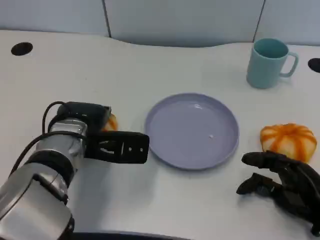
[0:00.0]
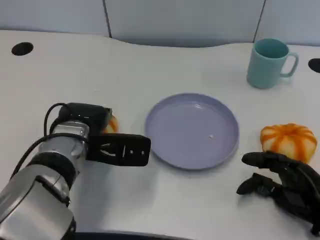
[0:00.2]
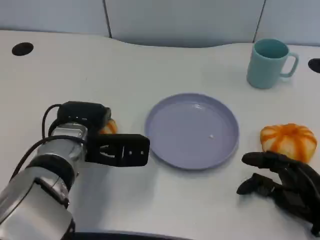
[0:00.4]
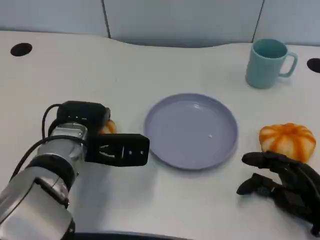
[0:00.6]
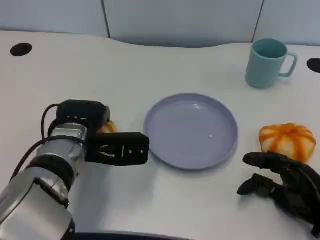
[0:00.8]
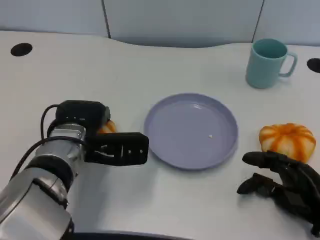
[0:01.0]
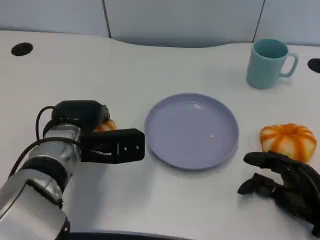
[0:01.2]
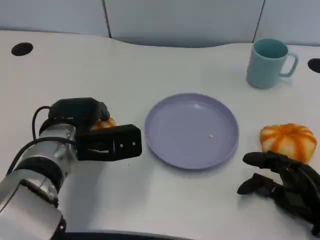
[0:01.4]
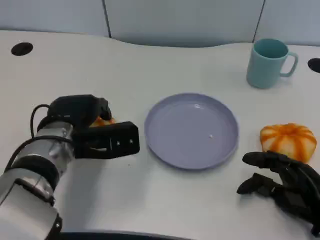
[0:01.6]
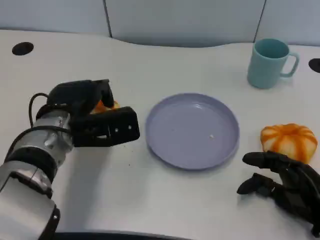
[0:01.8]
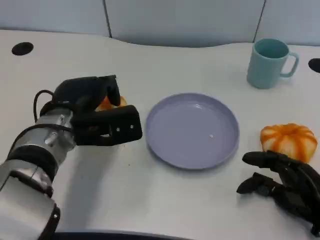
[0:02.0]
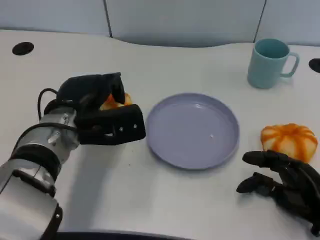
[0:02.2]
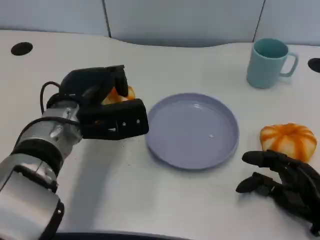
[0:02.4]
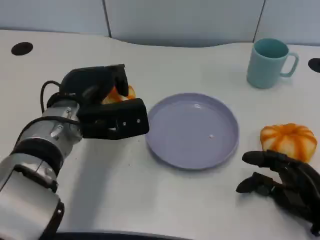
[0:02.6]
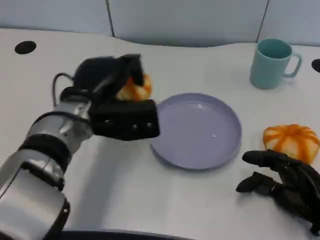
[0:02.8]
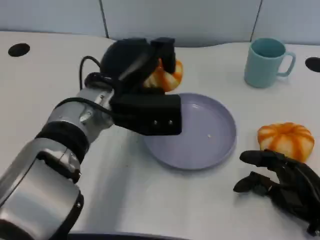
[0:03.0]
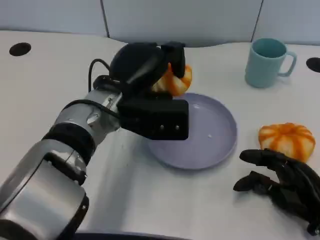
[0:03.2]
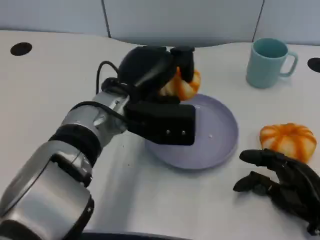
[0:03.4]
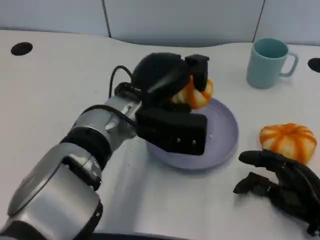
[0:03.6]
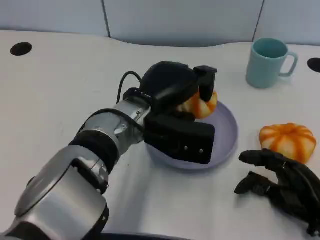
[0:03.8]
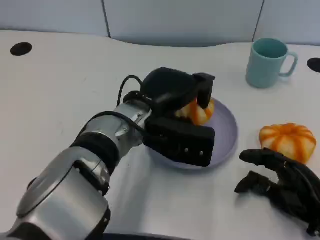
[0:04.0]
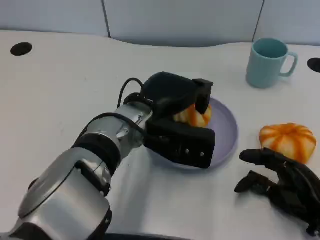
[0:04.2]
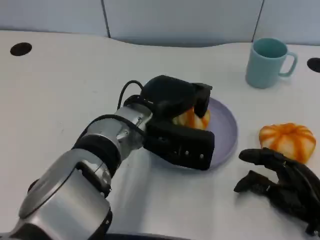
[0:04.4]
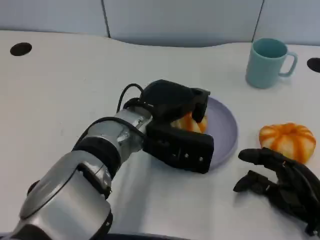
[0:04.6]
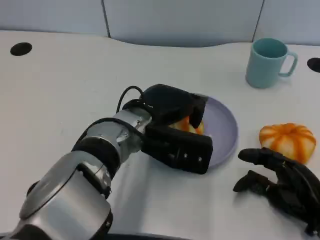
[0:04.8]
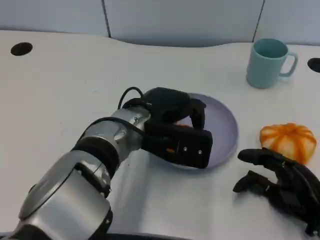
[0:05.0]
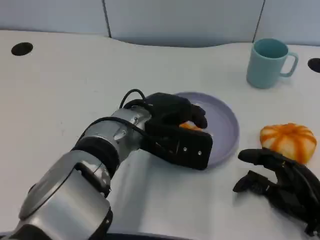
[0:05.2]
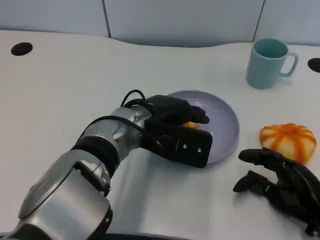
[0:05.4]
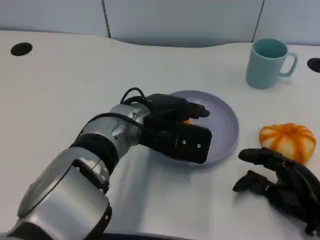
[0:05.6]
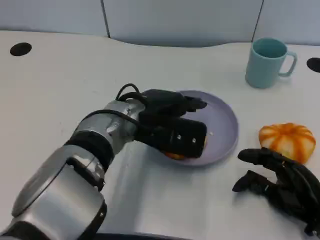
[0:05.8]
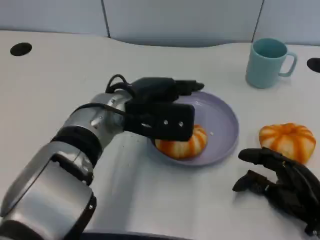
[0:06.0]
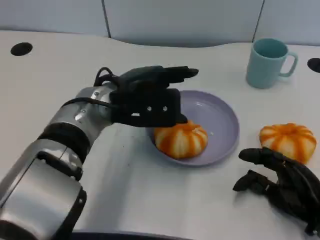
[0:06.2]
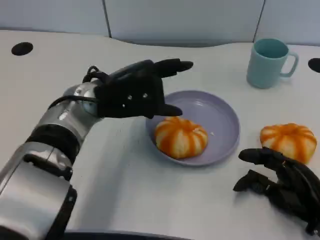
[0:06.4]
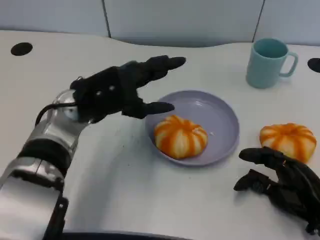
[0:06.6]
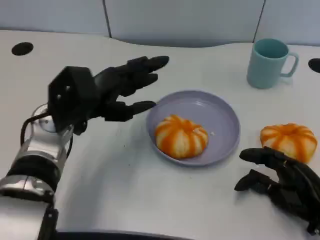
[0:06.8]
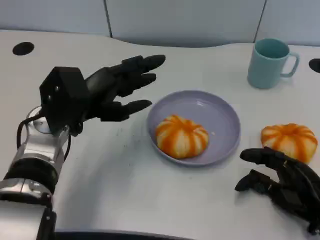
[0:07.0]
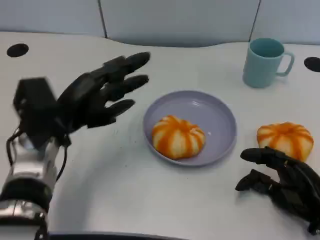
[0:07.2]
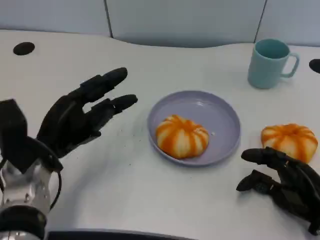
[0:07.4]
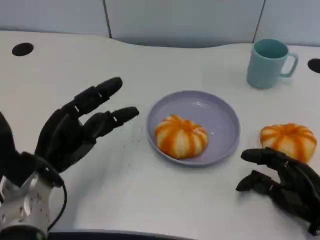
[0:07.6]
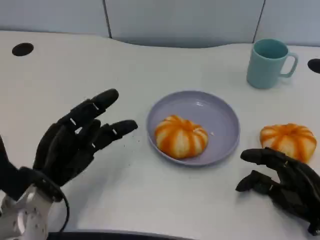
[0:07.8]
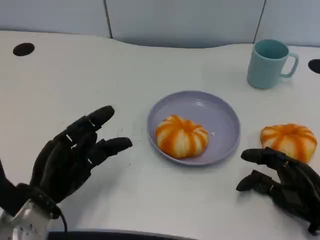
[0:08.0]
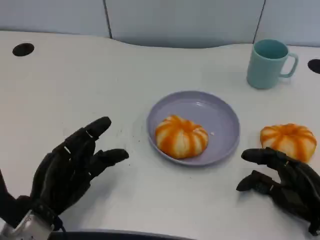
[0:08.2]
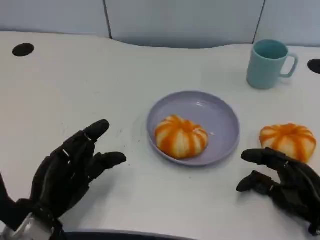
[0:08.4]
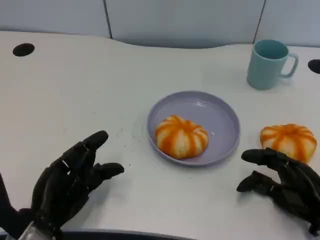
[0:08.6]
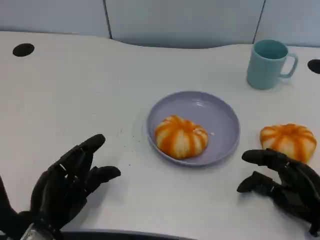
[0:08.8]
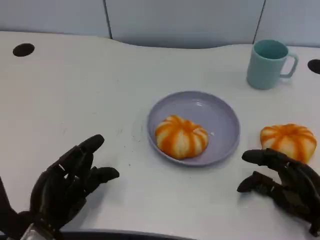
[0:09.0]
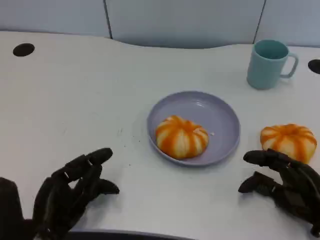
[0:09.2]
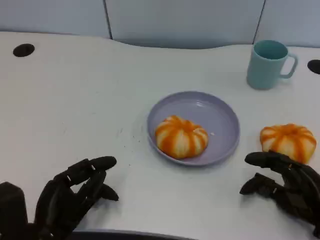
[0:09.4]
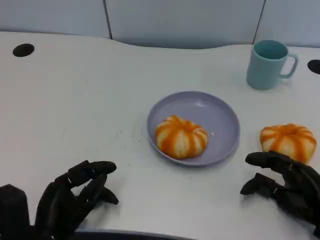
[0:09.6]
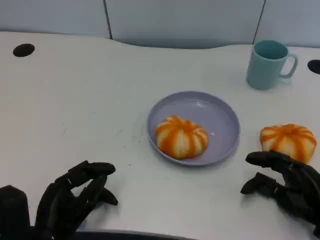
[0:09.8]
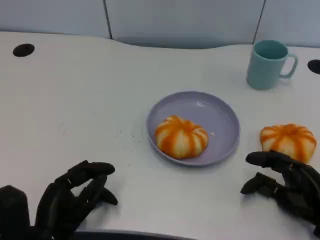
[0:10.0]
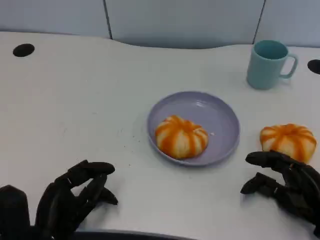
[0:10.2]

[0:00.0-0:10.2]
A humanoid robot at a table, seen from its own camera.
Task of the whole recording: Grasp the bread from the table and place it into the plate.
0:00.0 to 0:01.4: There are only small adjustments of the hands.
0:01.4 to 0:03.0: The left hand shifts some 10 cm to the right and upward.
0:03.0 to 0:04.4: The left hand ends up roughly 5 cm from where it was.
0:04.4 to 0:05.8: The hands stay close to where they were, moving slightly.
0:05.8 to 0:07.2: The left hand heads to the left, covering approximately 15 cm.
0:07.2 to 0:08.8: The left hand heads backward and downward, covering some 15 cm.
0:08.8 to 0:10.2: The hands stay close to where they were, moving slightly.

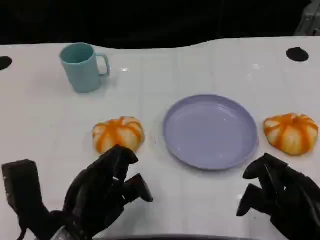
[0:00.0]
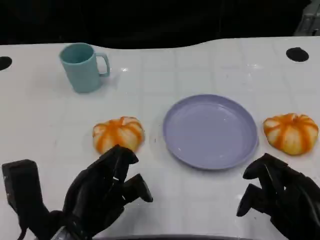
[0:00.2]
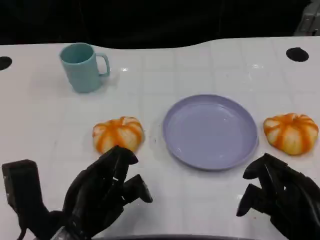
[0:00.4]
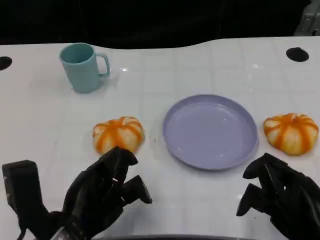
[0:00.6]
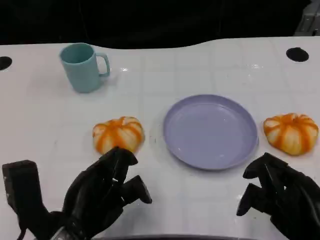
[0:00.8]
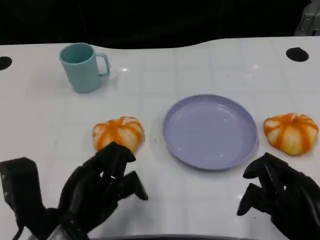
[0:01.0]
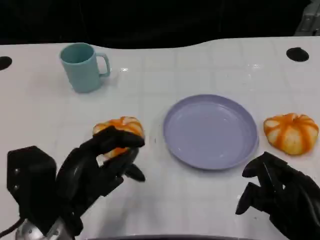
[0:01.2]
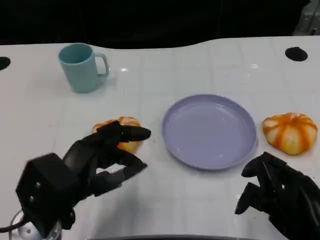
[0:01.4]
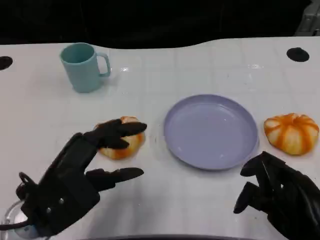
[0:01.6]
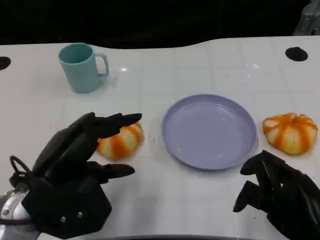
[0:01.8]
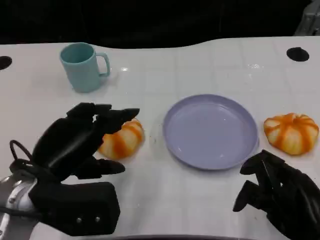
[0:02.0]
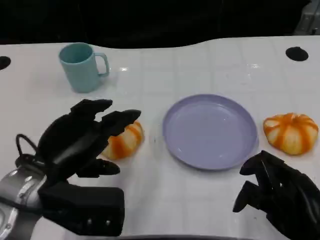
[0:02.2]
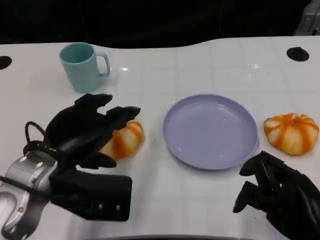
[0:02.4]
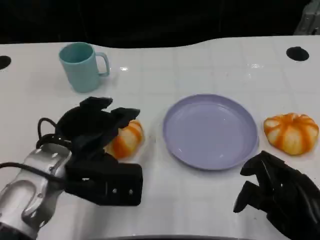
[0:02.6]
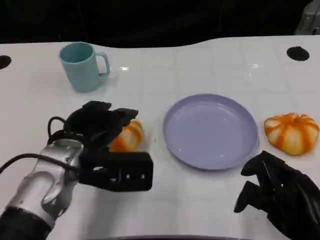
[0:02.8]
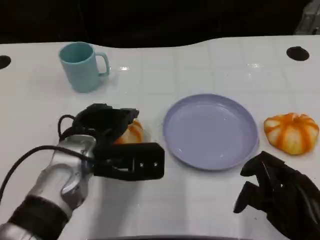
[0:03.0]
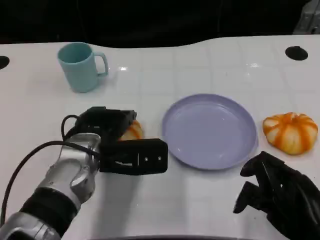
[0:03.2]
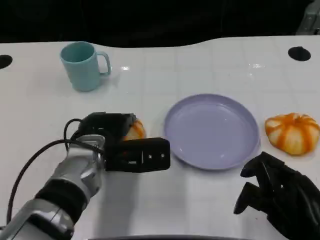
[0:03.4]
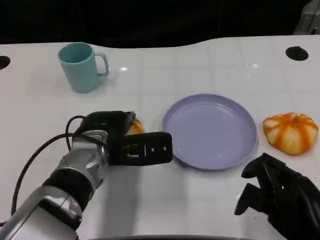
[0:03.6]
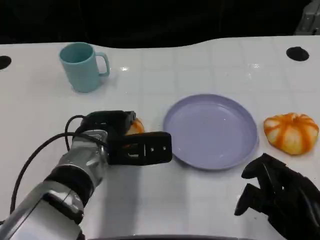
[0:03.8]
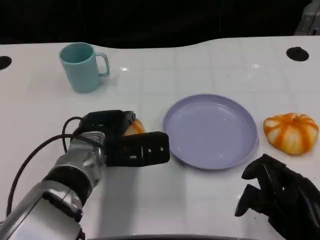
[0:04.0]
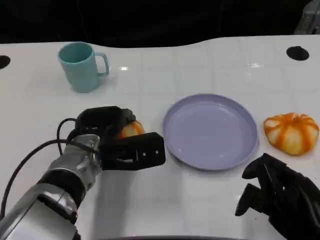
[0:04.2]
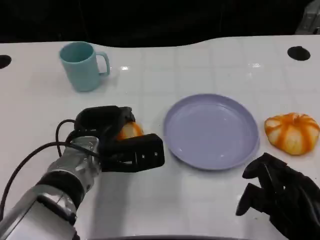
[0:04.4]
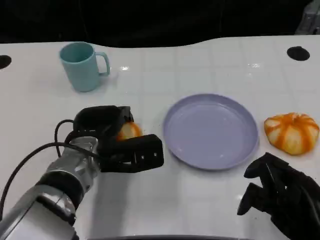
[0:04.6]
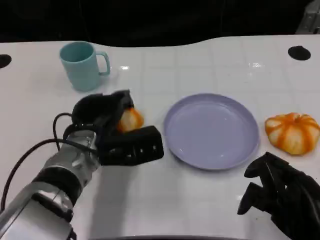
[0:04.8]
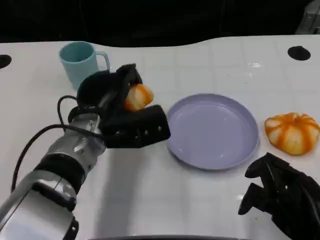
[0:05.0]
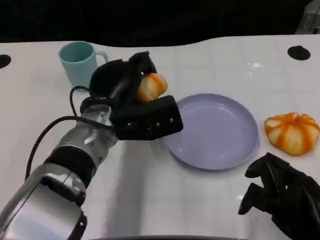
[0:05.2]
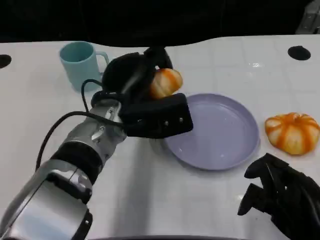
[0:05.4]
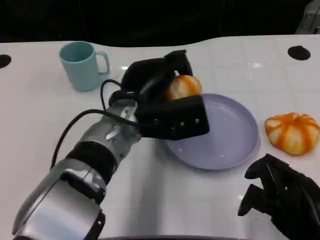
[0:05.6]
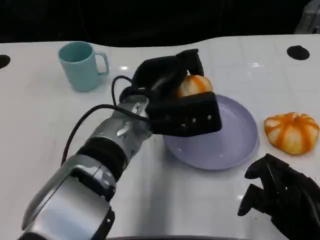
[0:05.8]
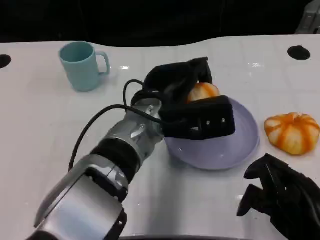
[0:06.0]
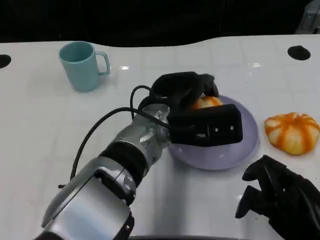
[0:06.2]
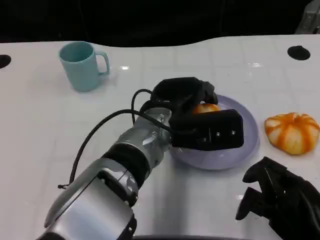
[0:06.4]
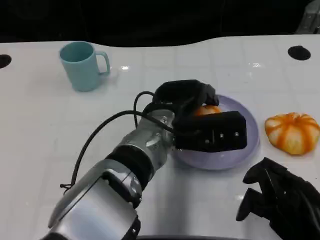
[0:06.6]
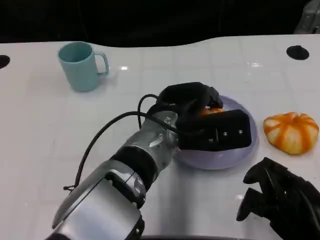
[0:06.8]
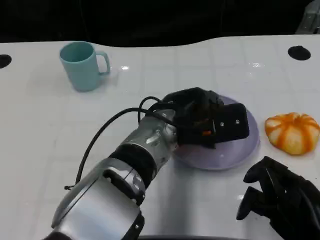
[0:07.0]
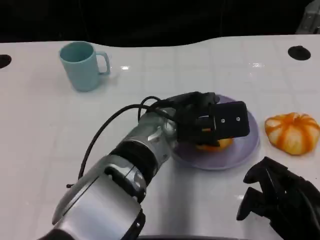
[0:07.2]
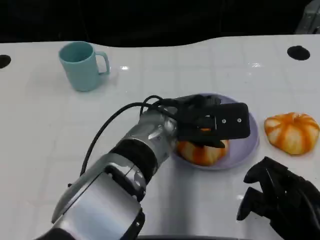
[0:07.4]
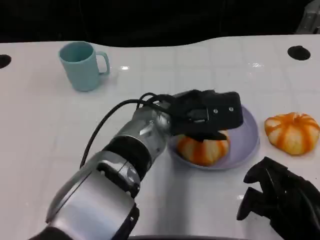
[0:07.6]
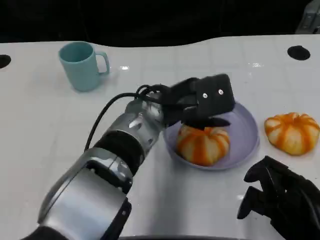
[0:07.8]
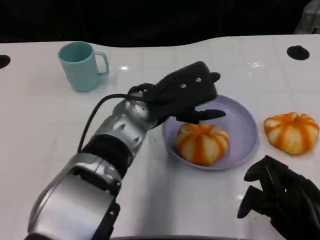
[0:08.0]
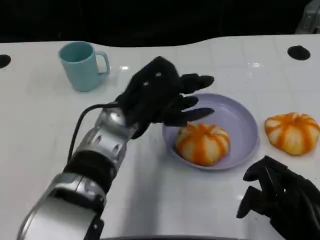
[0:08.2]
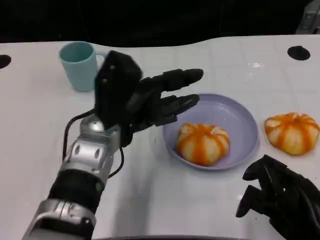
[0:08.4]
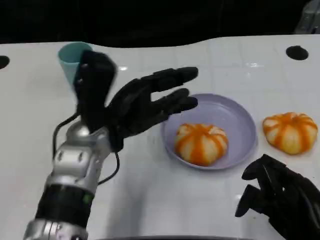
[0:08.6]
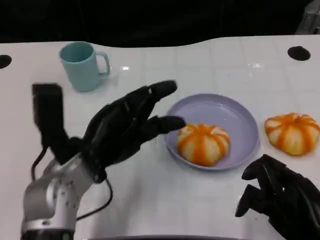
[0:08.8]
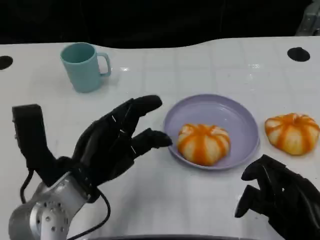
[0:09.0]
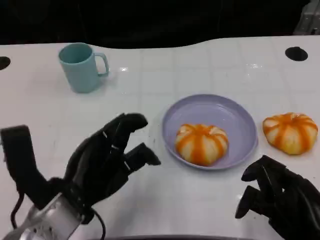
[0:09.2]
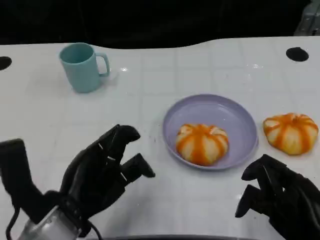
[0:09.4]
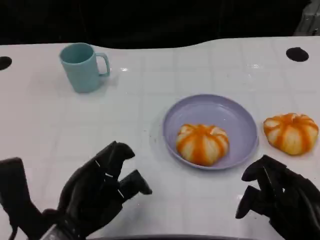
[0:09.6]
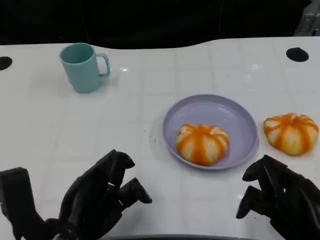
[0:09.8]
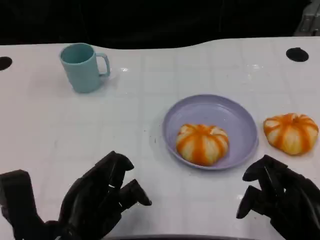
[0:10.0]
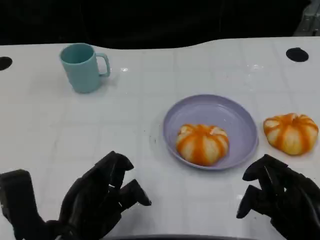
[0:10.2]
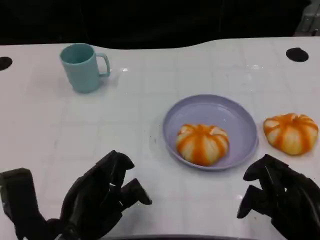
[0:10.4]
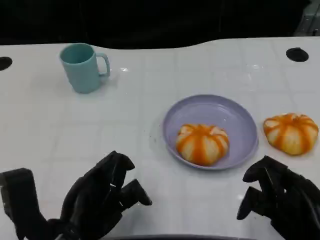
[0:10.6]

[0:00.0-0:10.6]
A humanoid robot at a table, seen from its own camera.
Task of the whole recording: Grasp the bread from the table and place it into the plate.
0:00.0 to 0:01.6: The left hand shifts by some 5 cm.
0:01.6 to 0:03.0: The left hand goes roughly 10 cm forward and to the right.
0:03.0 to 0:04.6: The hands stay close to where they were, moving slightly.
0:04.6 to 0:06.0: The left hand shifts approximately 10 cm to the right and upward.
0:07.6 to 0:09.0: The left hand travels to the left and backward by roughly 15 cm.
0:09.0 to 0:10.6: The left hand moves backward, about 5 cm.

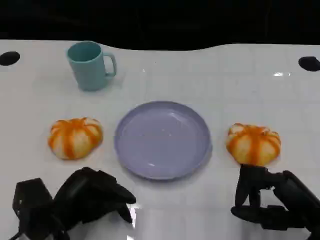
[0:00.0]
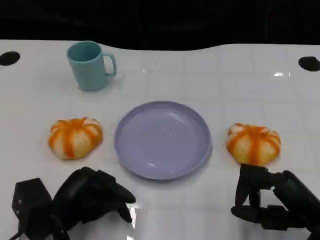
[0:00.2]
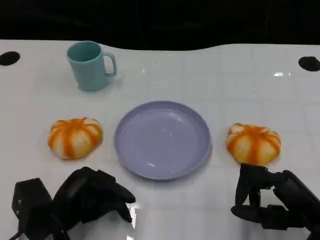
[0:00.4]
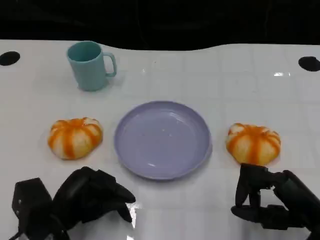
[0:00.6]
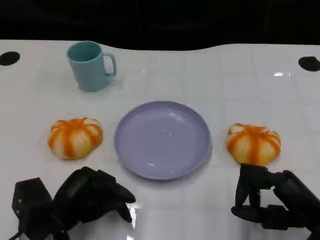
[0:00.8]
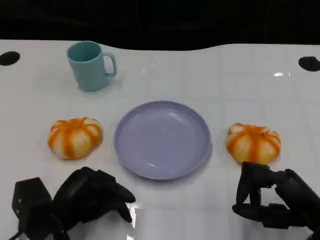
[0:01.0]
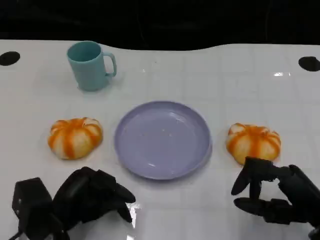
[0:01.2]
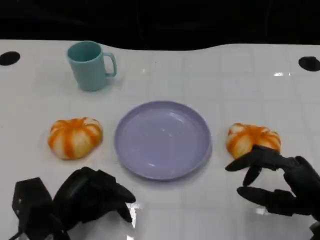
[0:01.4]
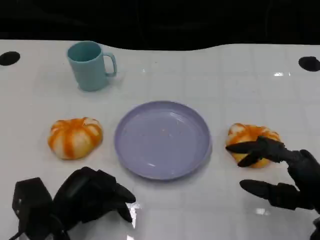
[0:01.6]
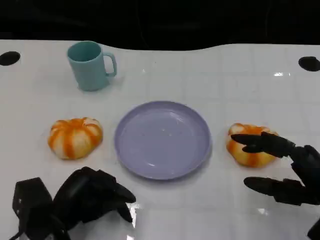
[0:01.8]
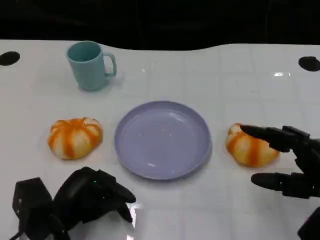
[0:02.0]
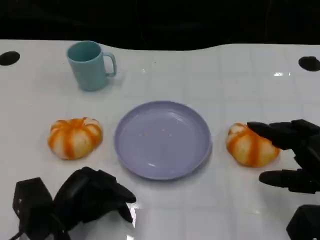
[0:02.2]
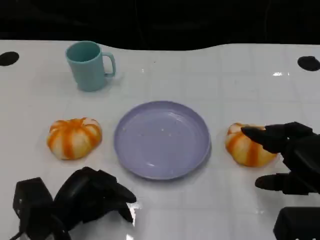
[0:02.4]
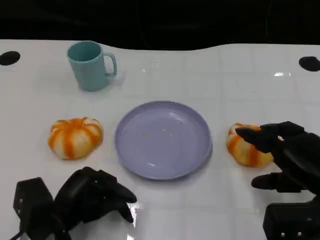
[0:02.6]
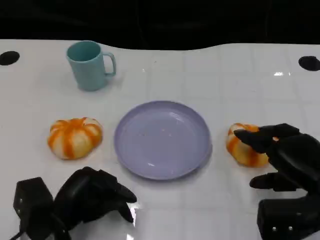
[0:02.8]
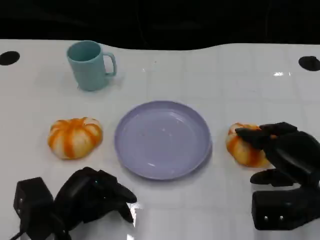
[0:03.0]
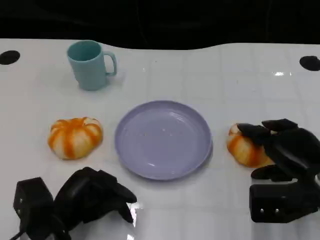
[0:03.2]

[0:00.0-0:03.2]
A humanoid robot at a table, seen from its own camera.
Task of the whole recording: Grasp the bread from the table and place it into the plate.
0:00.0 to 0:01.6: There are only small adjustments of the hands.
0:01.6 to 0:03.2: The right hand travels forward by approximately 5 cm.
